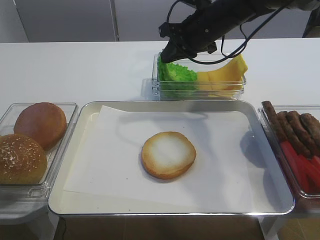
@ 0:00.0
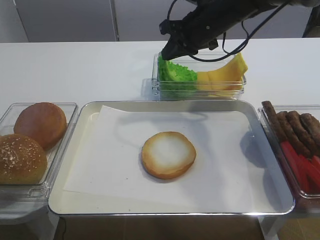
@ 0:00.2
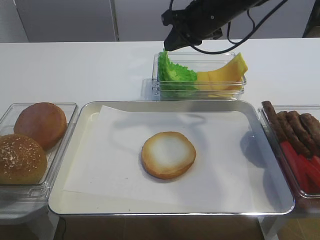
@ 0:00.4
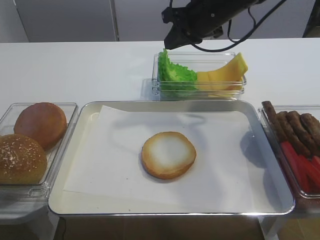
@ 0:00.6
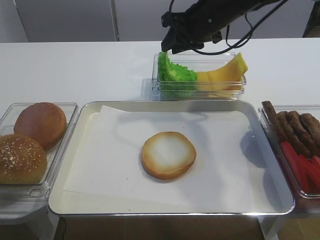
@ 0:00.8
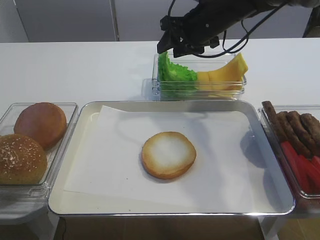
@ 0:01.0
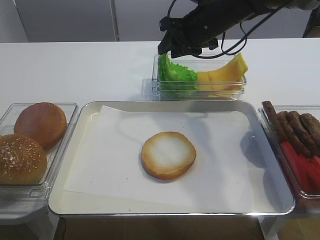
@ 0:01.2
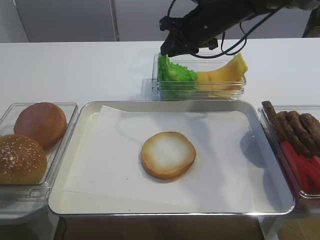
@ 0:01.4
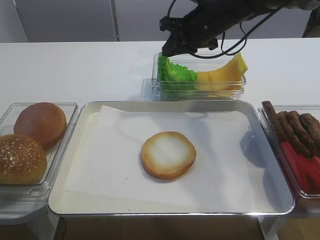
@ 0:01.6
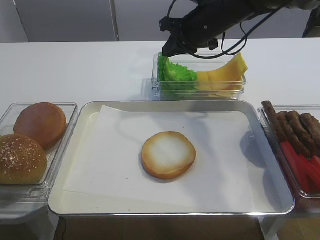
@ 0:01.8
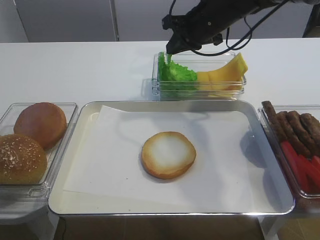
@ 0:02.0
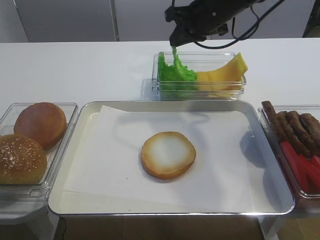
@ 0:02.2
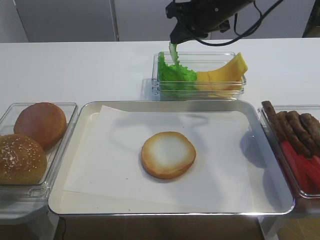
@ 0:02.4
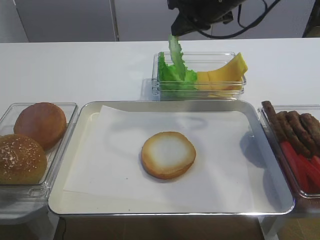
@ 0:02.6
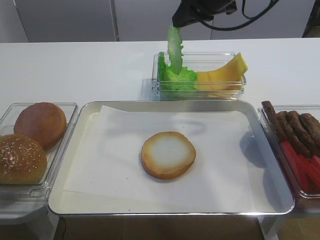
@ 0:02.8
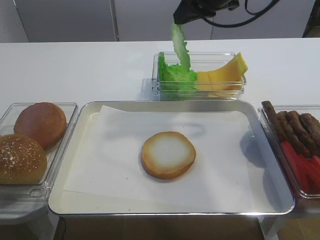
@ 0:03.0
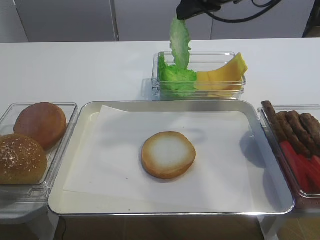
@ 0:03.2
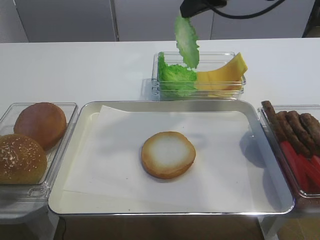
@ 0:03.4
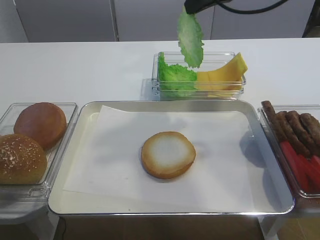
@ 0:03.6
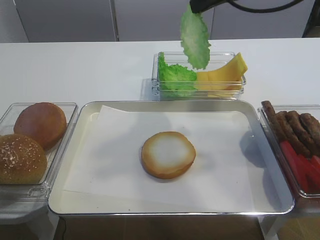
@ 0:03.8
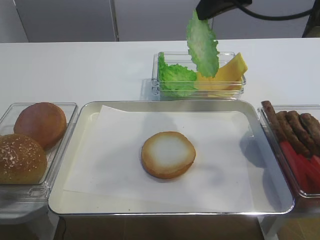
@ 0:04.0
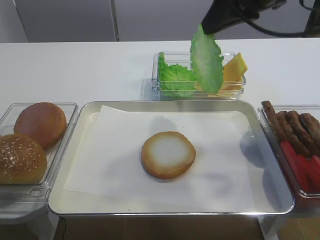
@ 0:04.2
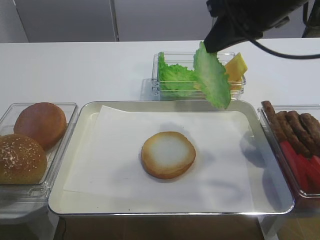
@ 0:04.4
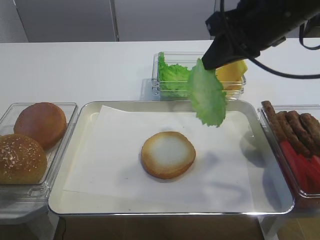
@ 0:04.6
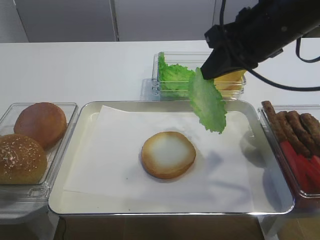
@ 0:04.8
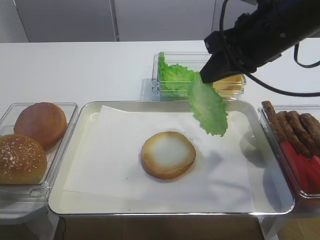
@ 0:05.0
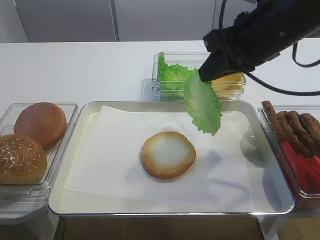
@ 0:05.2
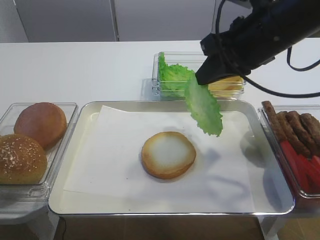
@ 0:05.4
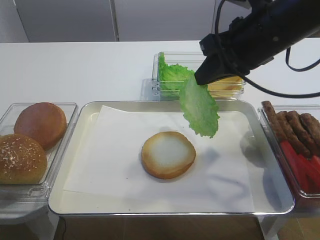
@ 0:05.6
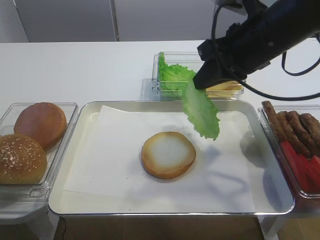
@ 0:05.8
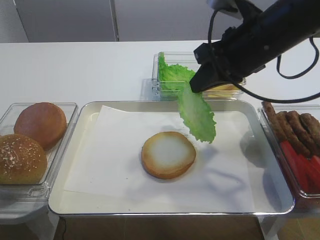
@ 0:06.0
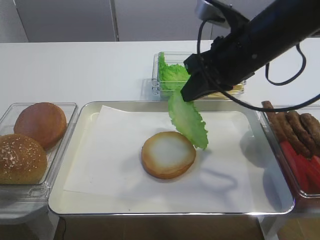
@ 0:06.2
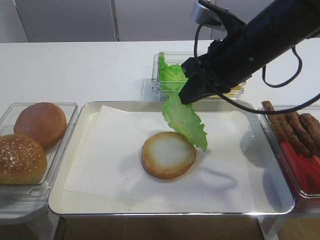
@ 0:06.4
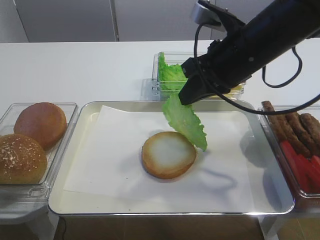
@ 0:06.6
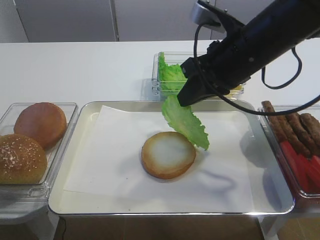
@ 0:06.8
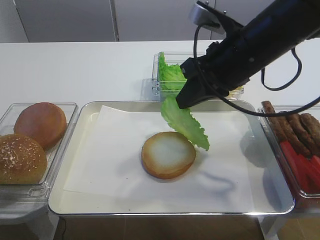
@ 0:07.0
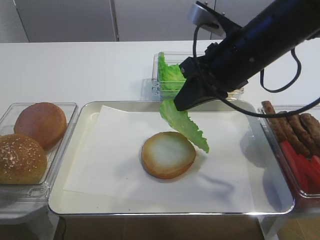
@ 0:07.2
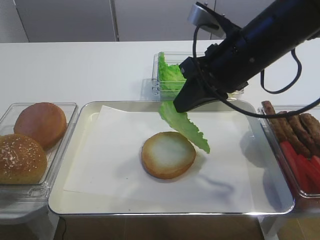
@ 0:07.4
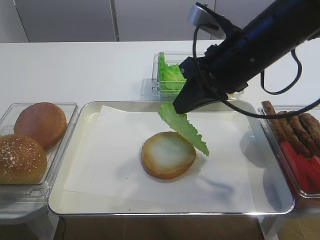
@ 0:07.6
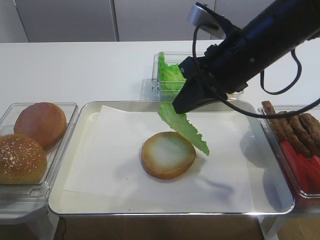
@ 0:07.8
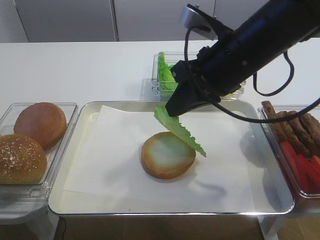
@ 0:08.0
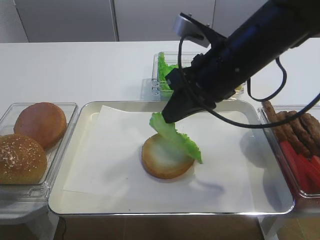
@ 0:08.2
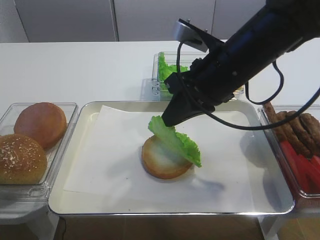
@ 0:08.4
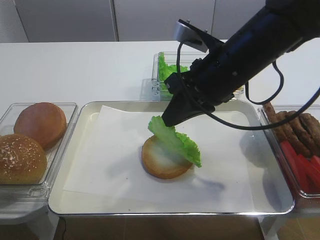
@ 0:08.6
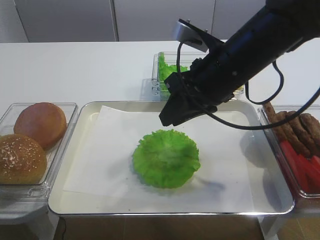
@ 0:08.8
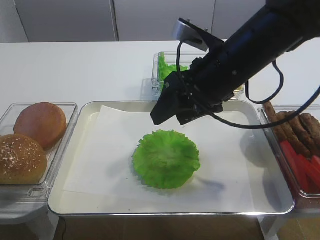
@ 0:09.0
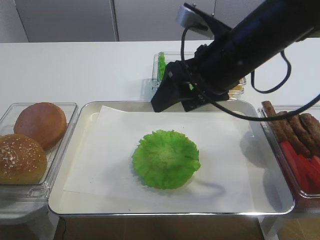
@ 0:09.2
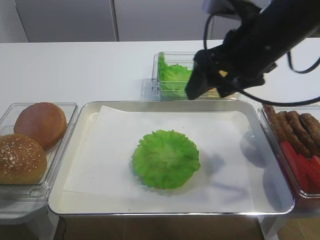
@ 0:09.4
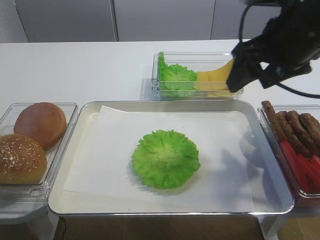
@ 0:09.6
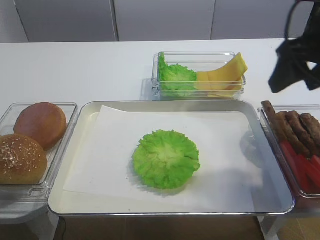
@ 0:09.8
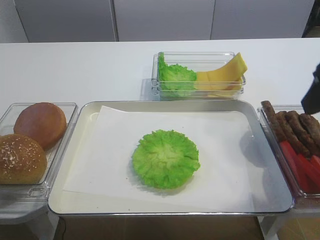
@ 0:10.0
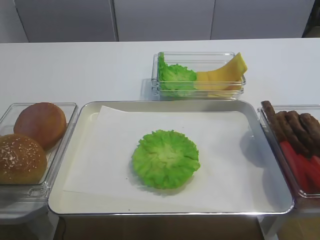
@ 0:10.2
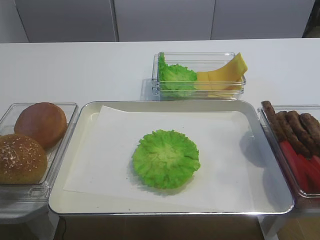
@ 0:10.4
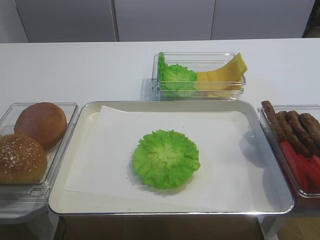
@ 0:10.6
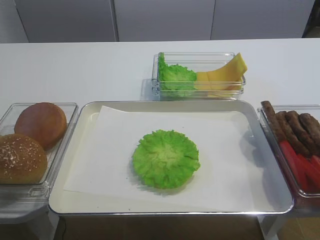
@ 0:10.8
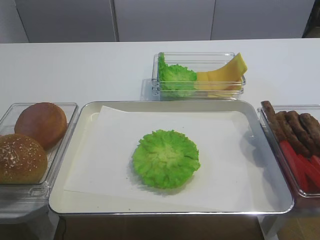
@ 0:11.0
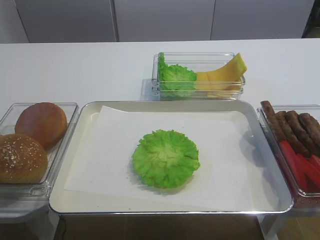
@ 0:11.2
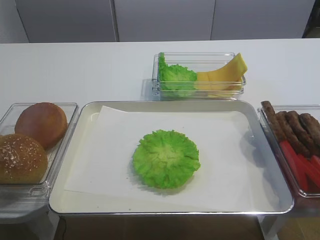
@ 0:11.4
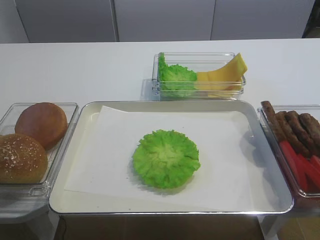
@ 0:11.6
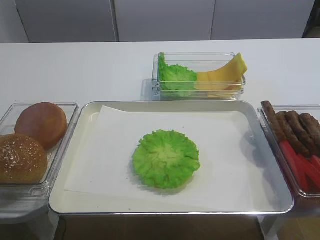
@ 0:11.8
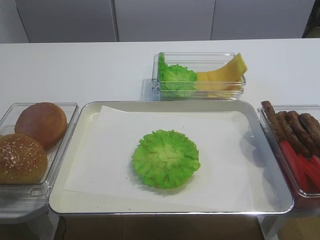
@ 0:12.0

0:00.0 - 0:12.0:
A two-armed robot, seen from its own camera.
Step, 0:00.0 - 0:02.0: Pick up the lettuce leaf with the right gripper.
Step, 0:02.4 - 0:09.0: Place the lettuce leaf on the bread slice with the right gripper.
0:00.0 - 0:01.6: The right gripper opens and closes again.
0:01.6 - 0:03.0: The right gripper heads upward, covering some 10 cm.
0:03.0 - 0:04.4: The right gripper shifts about 10 cm backward.
0:04.4 - 0:06.0: The right gripper heads downward, covering about 5 cm.
0:06.0 - 0:07.6: The grippers make only small movements.
0:07.6 - 0:09.0: The right gripper opens its fingers.
0:09.0 - 0:10.4: The right gripper heads backward and to the right, covering some 25 cm.

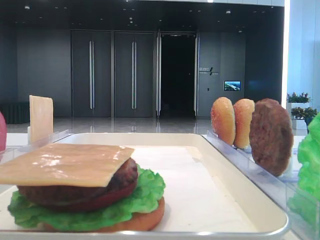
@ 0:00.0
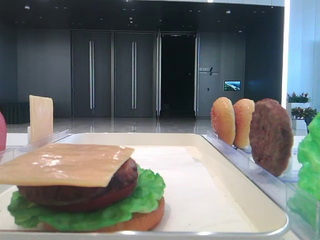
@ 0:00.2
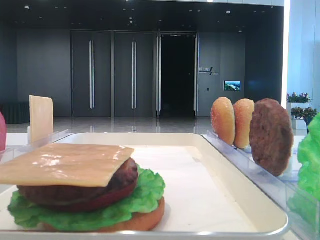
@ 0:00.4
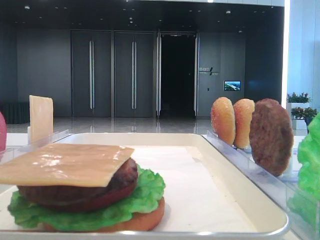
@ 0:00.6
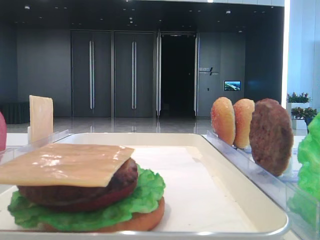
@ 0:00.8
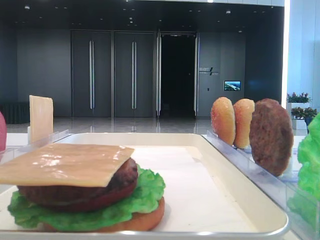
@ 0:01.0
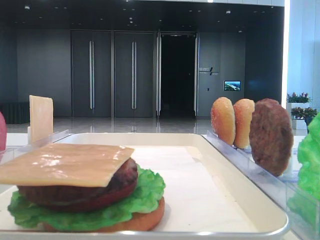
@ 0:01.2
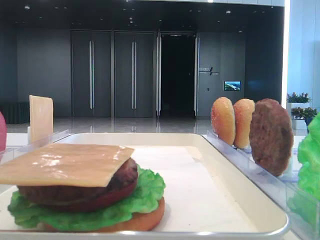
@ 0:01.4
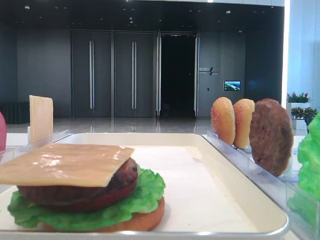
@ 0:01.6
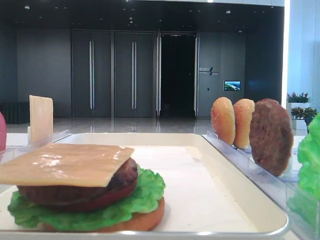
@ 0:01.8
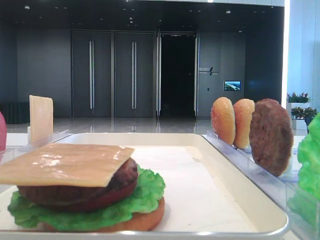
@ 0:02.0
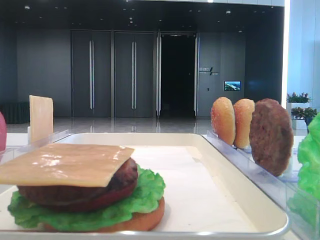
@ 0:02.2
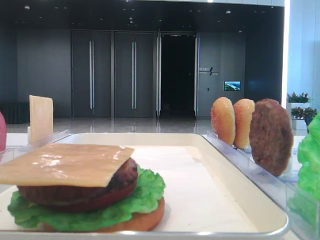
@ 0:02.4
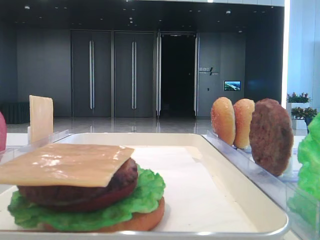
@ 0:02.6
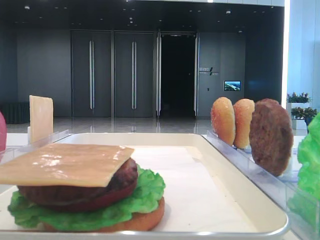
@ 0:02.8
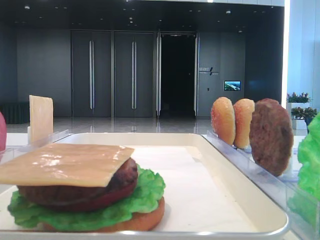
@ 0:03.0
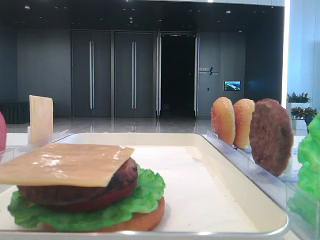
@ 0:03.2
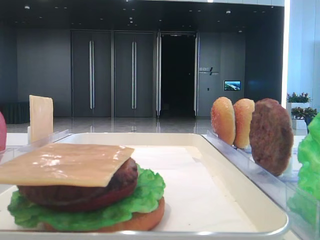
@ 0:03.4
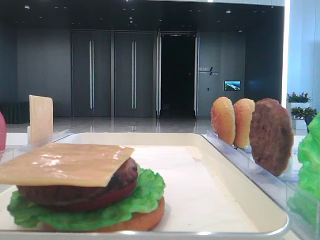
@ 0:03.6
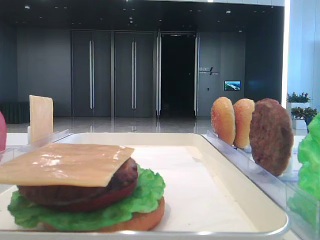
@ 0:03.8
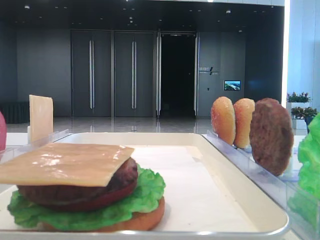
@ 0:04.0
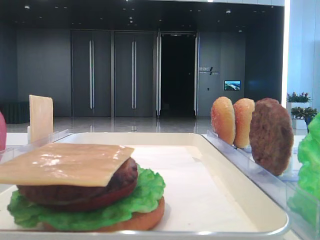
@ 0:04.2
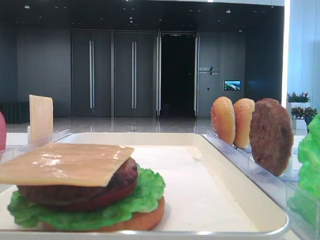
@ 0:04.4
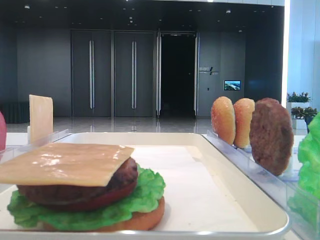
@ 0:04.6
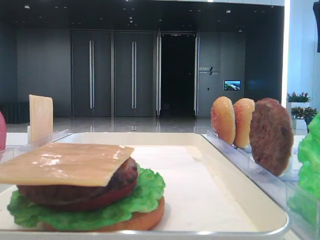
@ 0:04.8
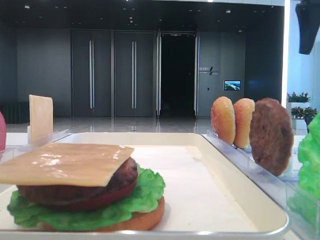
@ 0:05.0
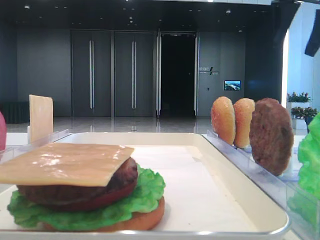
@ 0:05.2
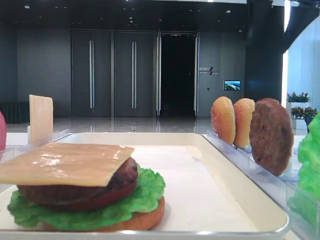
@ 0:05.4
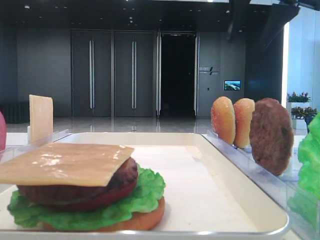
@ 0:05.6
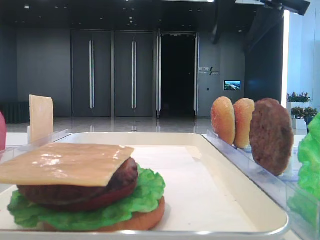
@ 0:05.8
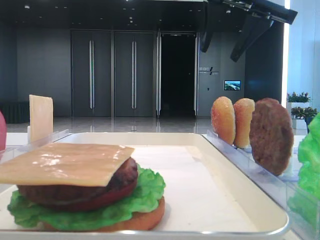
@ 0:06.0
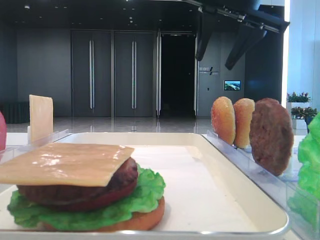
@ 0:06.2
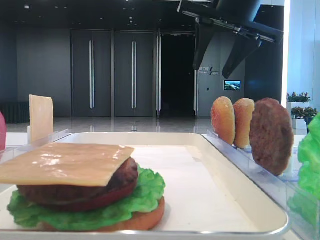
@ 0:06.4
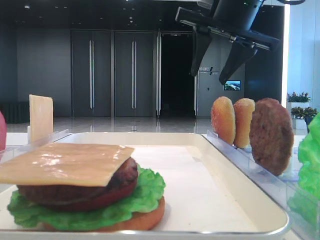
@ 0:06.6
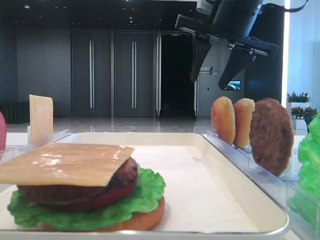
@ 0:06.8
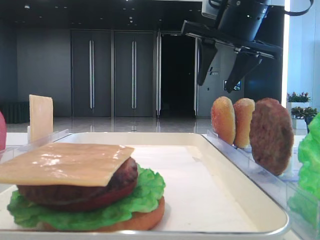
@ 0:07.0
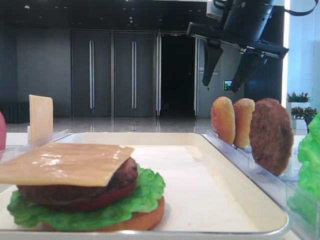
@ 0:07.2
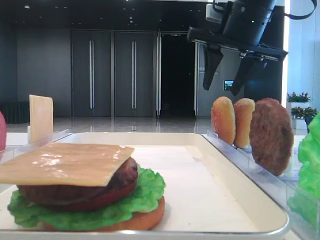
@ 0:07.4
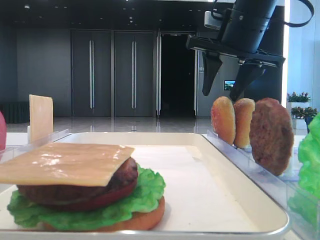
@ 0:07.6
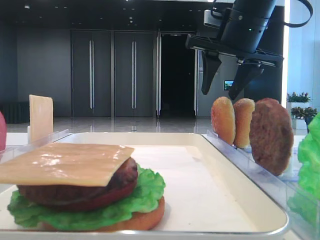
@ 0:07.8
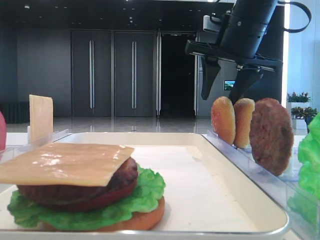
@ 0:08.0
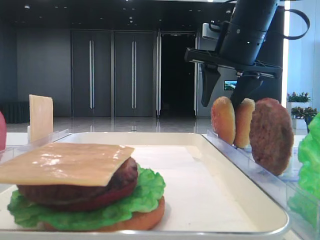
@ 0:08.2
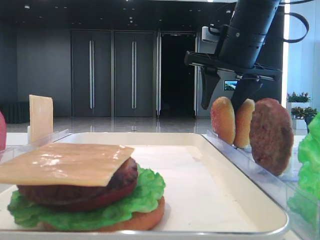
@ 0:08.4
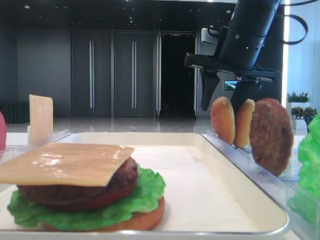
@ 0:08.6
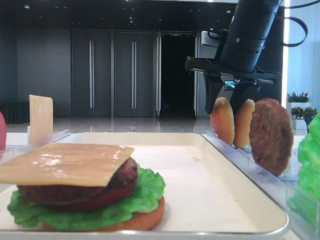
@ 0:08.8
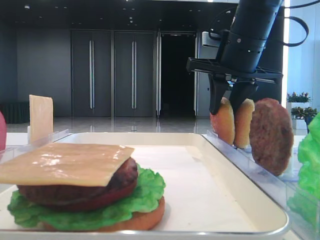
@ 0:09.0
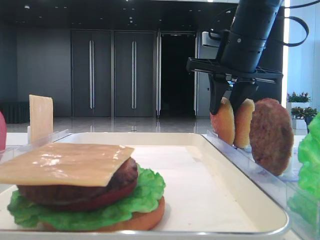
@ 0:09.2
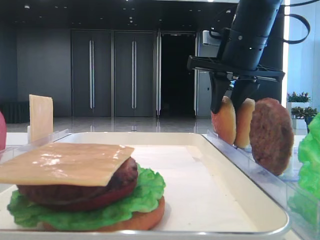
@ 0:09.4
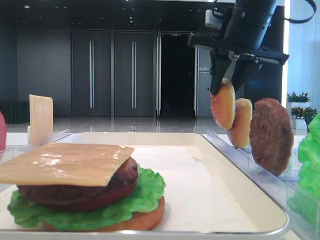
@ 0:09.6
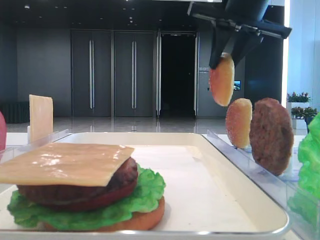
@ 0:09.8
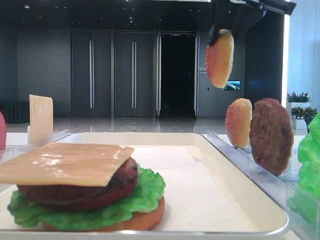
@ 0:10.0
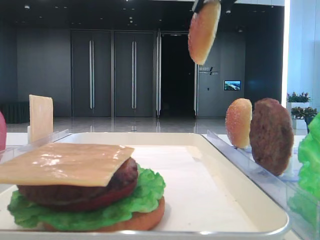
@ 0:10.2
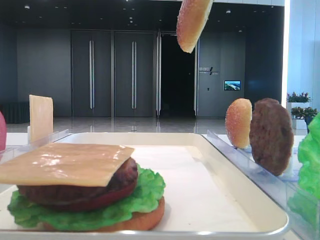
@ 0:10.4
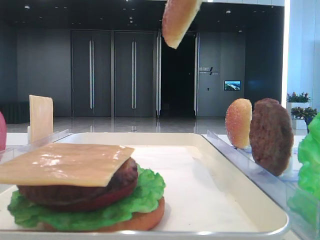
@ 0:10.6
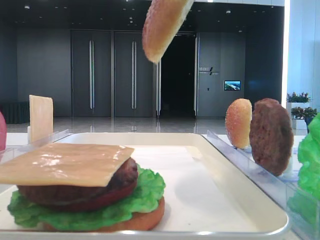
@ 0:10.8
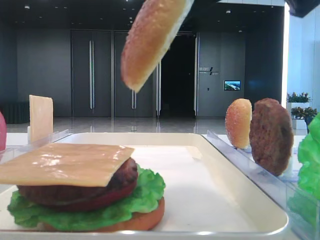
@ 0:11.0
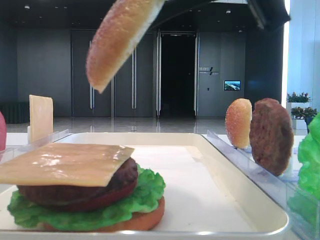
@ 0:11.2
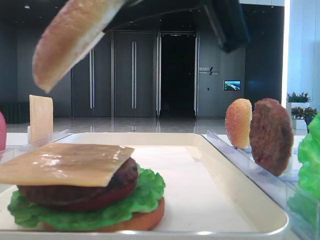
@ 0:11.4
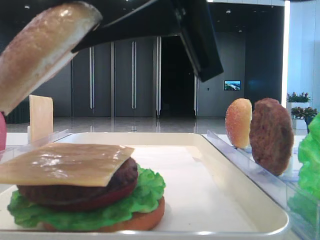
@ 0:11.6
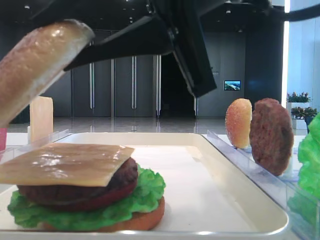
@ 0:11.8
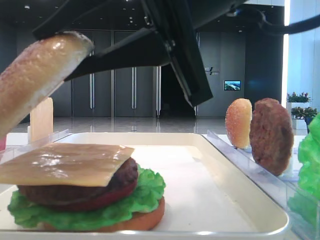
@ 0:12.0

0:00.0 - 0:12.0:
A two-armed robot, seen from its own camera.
Step, 0:00.0 - 0:08.8: Pick up the top bread slice with the right hand.
0:04.4 - 0:06.0: The right gripper travels to the left by about 15 cm.
0:06.0 - 0:07.6: The right gripper heads downward, covering roughly 5 cm.
0:07.6 - 0:09.0: The right gripper closes up.
0:09.0 - 0:10.4: The right gripper shifts approximately 20 cm backward and upward.
0:10.4 - 0:12.0: The right gripper shifts some 15 cm downward, to the left and backward.
